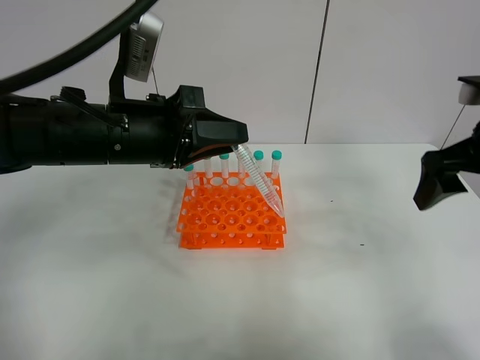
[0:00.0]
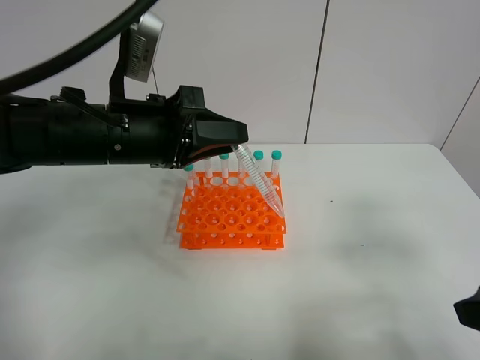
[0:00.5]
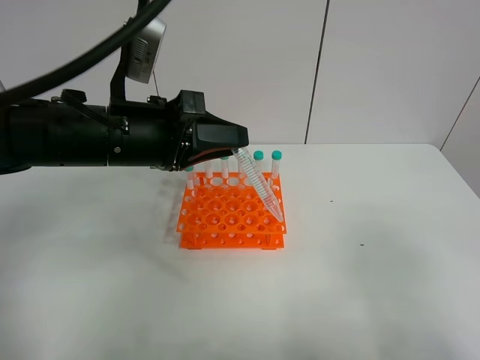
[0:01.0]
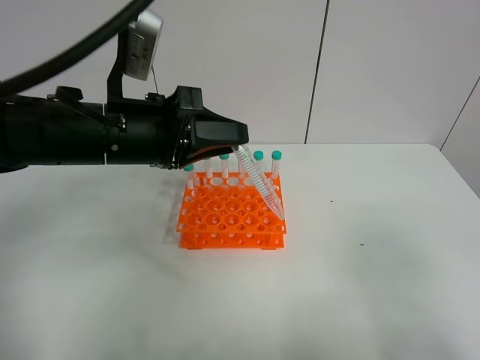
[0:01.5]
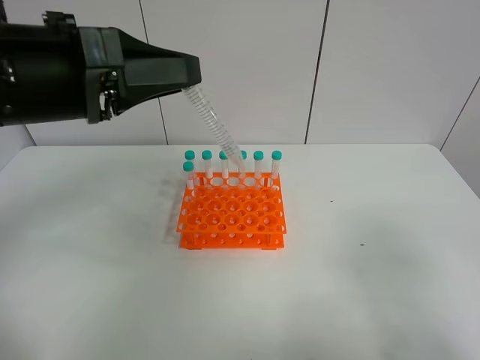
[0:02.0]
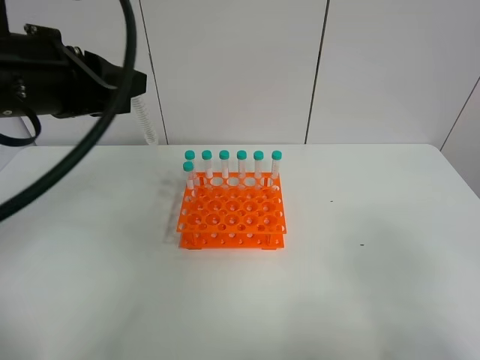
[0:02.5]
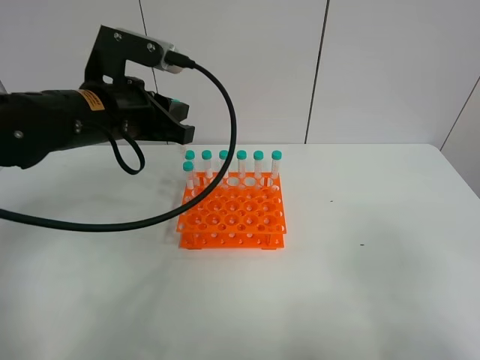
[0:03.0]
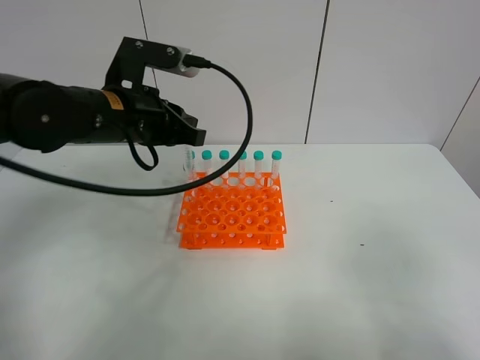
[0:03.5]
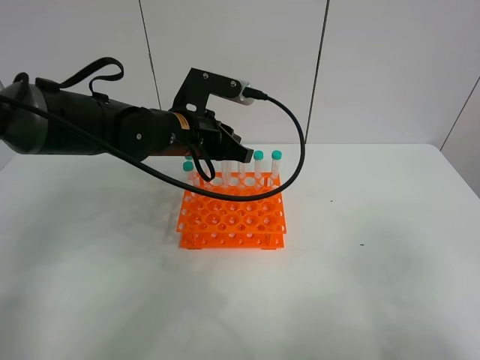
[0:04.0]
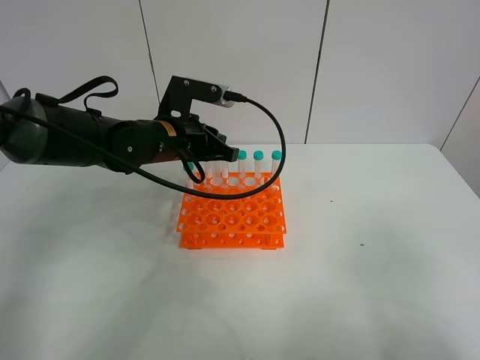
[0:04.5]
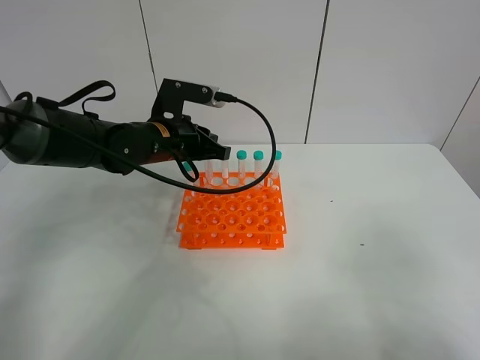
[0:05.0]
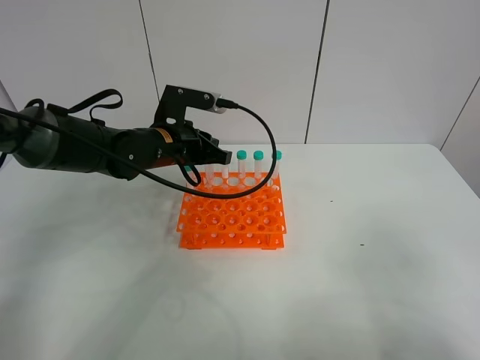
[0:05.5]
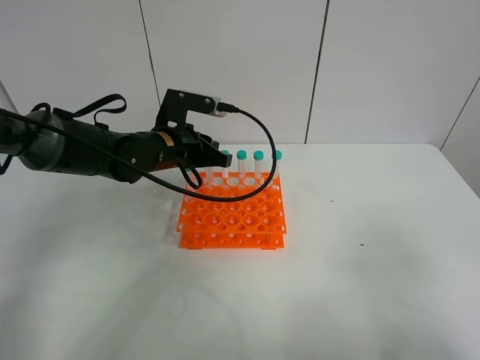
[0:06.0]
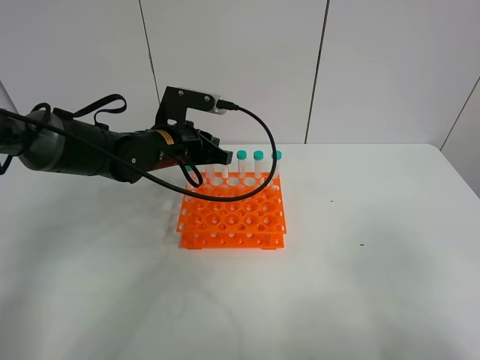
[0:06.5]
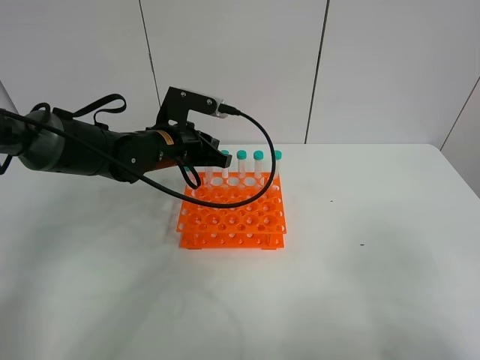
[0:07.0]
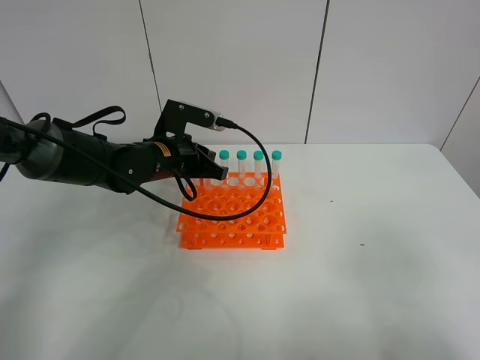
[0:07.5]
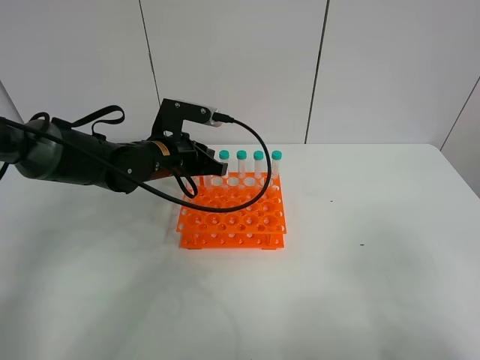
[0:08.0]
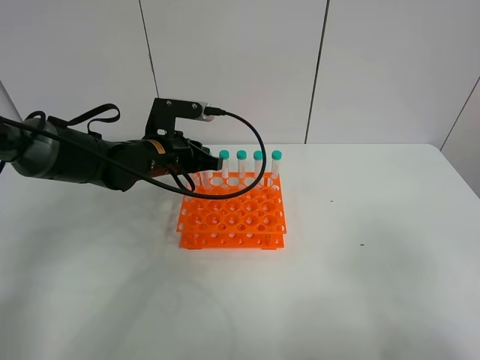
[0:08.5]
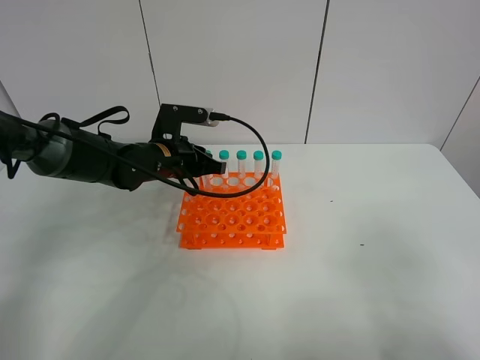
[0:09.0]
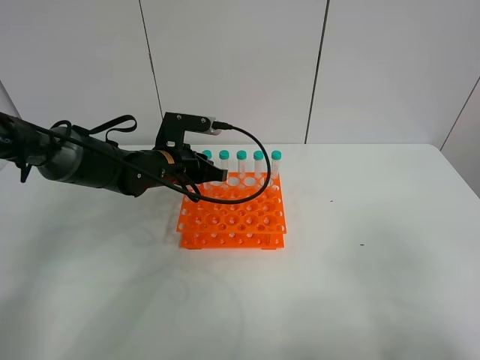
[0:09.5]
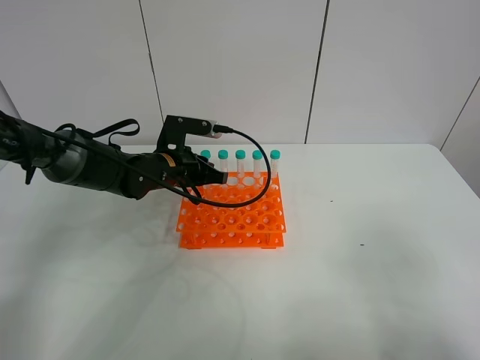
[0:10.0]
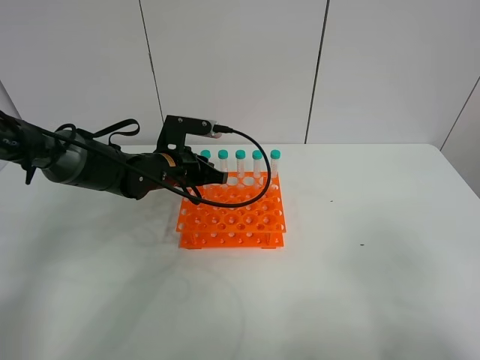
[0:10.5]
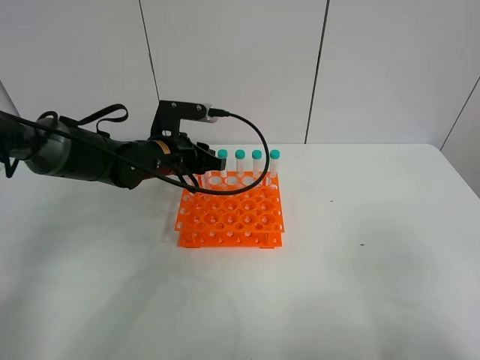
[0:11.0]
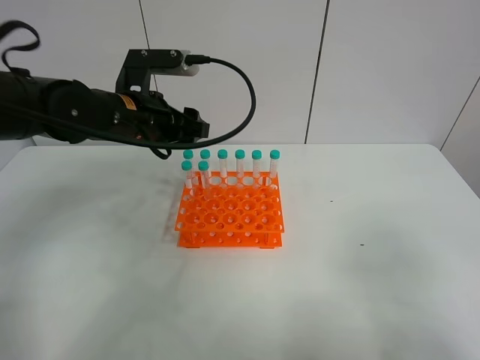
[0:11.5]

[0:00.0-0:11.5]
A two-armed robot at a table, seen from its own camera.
Task of the whole recording: Put the test tube on the table back onto the test tube rack.
Step, 0:00.0 to 0:11.0: Place the test tube on the test tube rack with the left gripper.
0:00.0 to 0:02.0: The left gripper travels upward by roughly 10 cm. Meanwhile the right gripper is displaced backward by about 25 cm.
0:02.0 to 0:04.0: The left gripper travels forward, downward and to the right by about 20 cm.
0:04.0 to 0:06.0: The left gripper moves about 5 cm.
0:06.0 to 0:09.5: There are only small adjustments of the grippers.
0:09.5 to 0:11.5: The left gripper travels upward by roughly 10 cm, and opens.

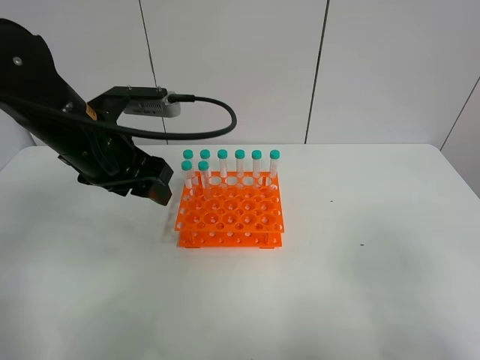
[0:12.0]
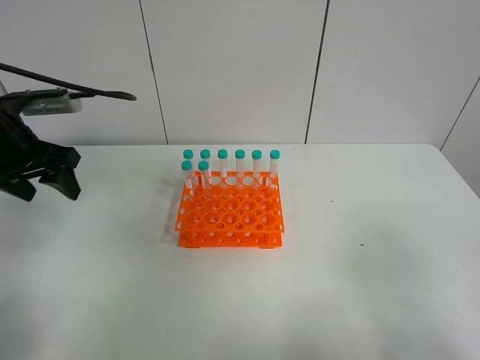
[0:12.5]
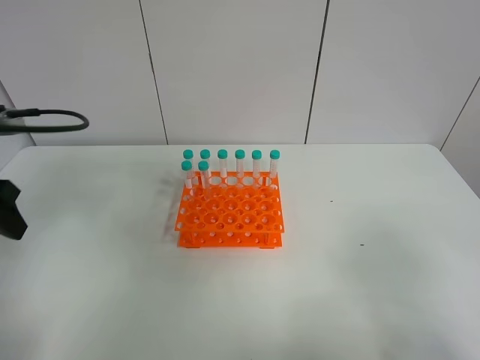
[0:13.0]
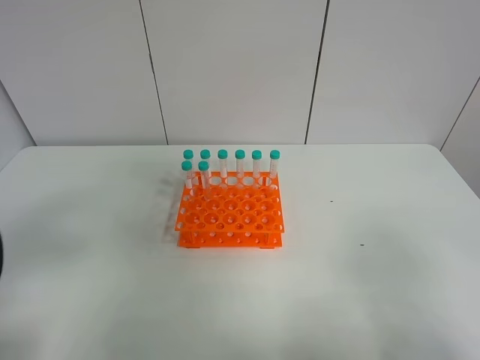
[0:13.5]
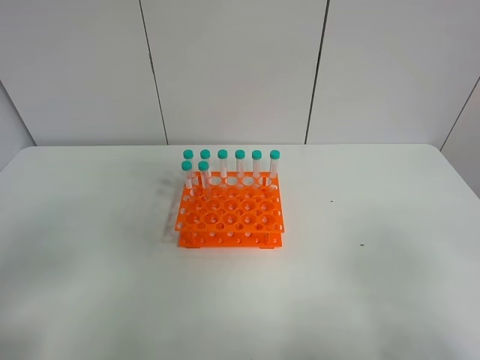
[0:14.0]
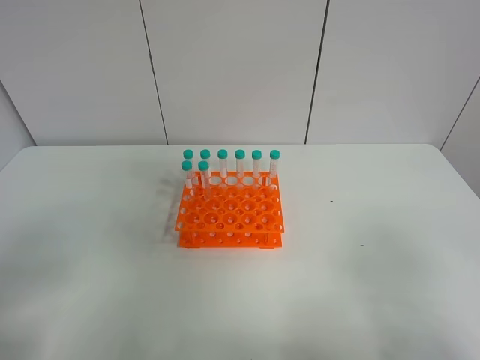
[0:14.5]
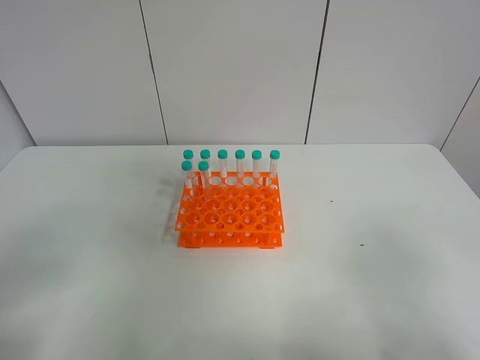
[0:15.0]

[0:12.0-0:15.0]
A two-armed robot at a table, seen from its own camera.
Task of the whole recording: Put the test tube on the table back onto the test tube rack.
0:12.0 to 0:13.5: The left gripper is displaced backward and to the left by approximately 25 cm.
